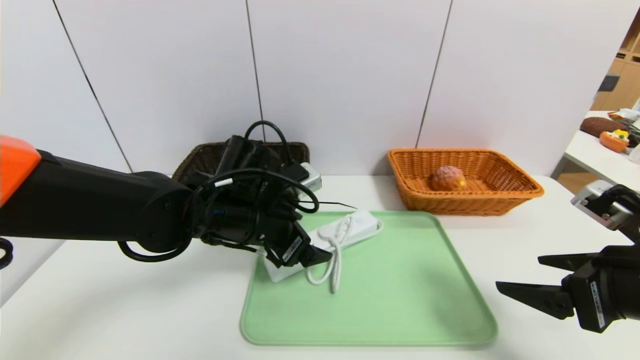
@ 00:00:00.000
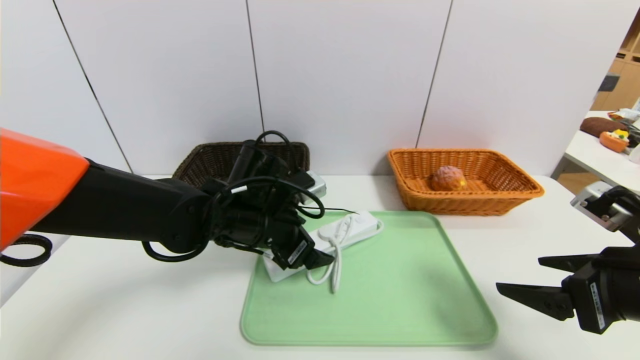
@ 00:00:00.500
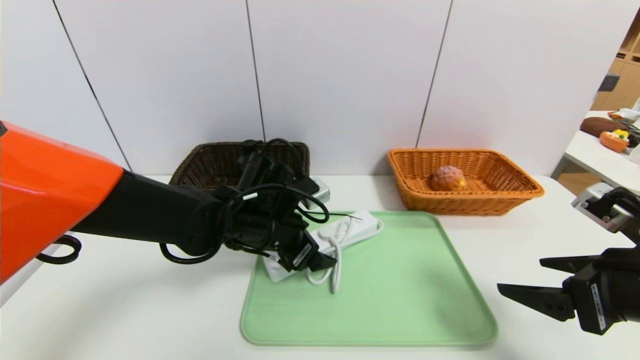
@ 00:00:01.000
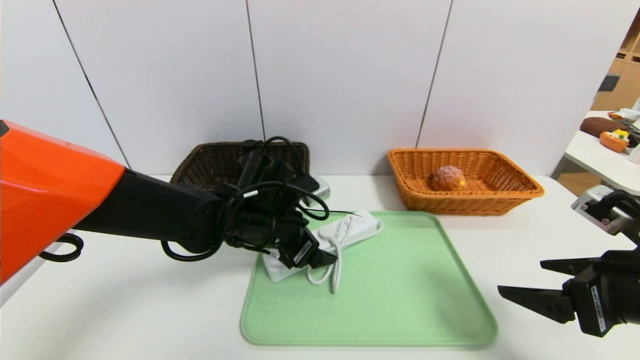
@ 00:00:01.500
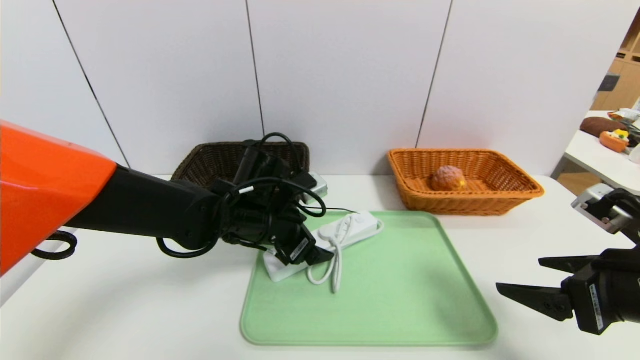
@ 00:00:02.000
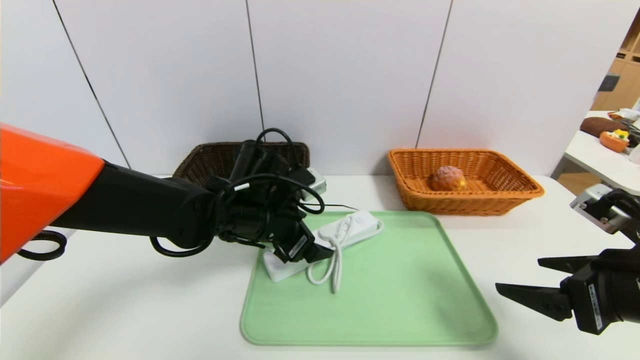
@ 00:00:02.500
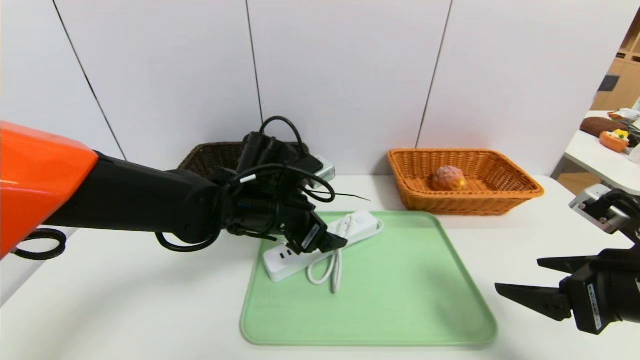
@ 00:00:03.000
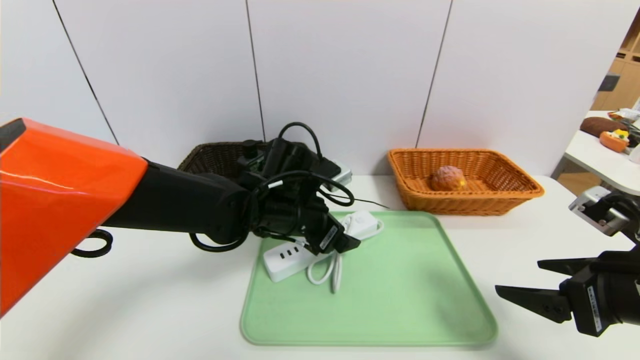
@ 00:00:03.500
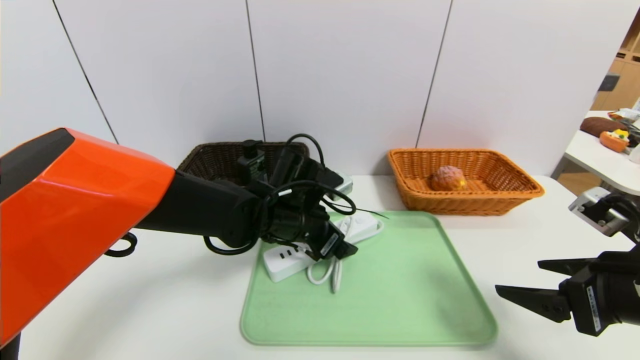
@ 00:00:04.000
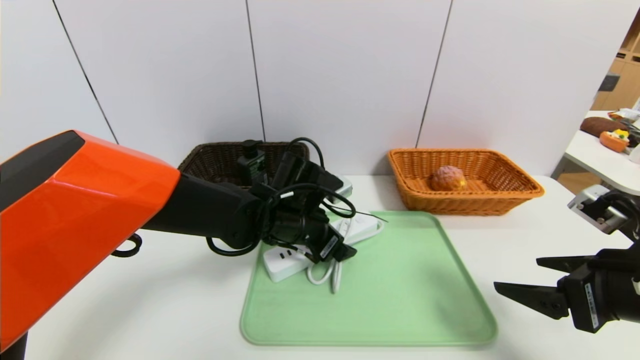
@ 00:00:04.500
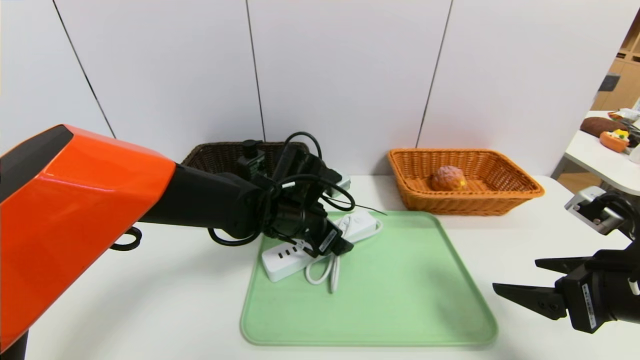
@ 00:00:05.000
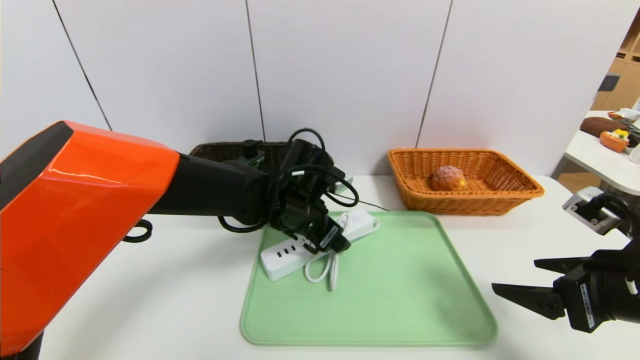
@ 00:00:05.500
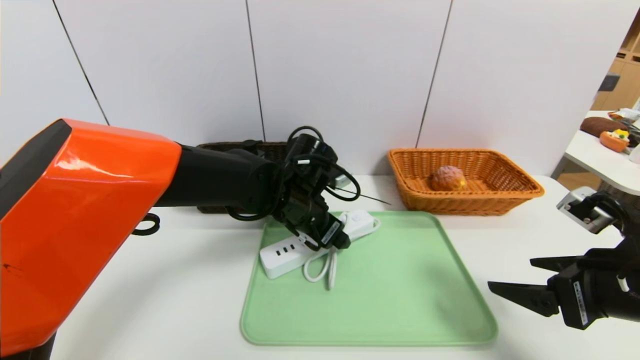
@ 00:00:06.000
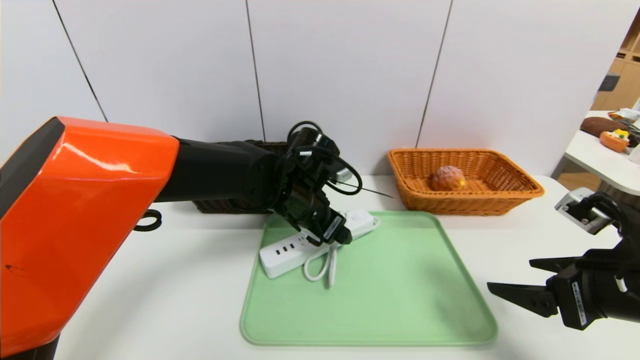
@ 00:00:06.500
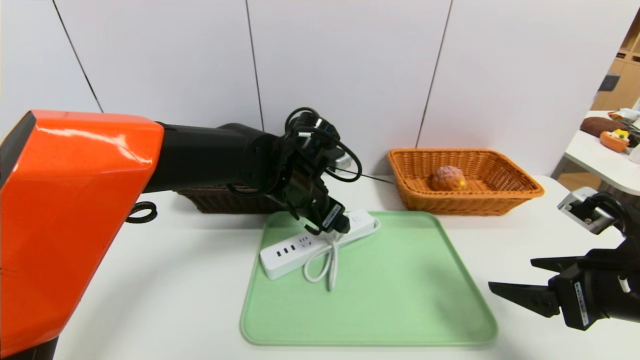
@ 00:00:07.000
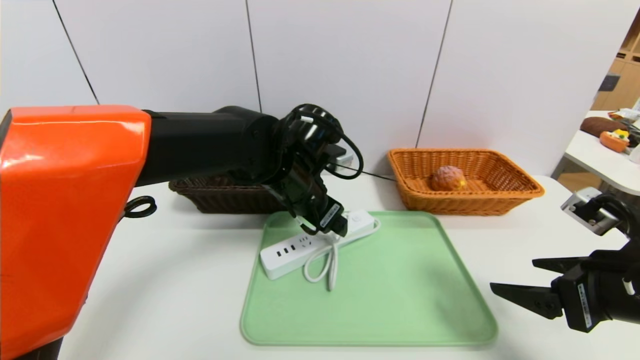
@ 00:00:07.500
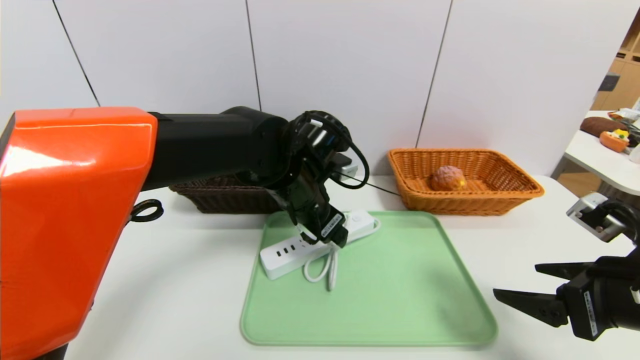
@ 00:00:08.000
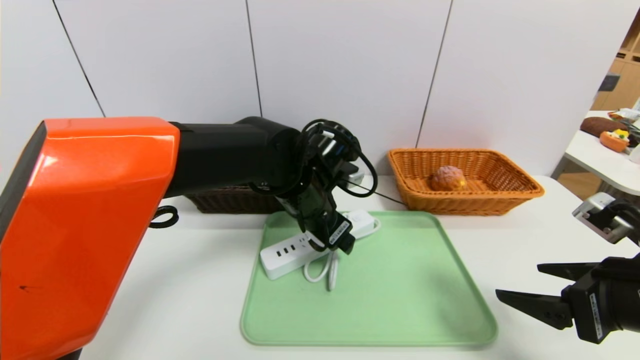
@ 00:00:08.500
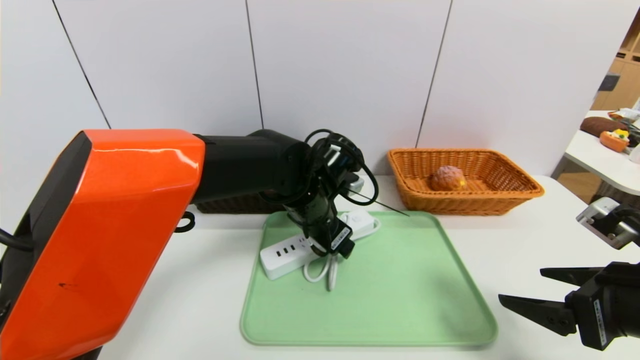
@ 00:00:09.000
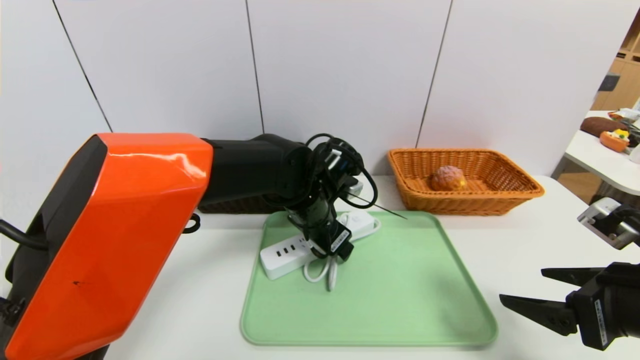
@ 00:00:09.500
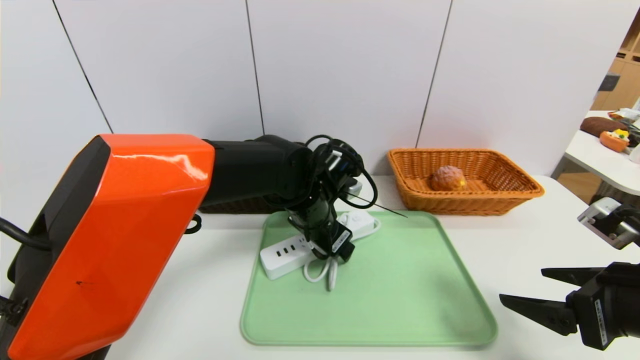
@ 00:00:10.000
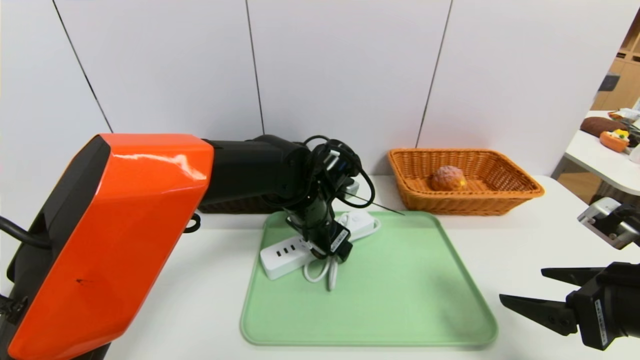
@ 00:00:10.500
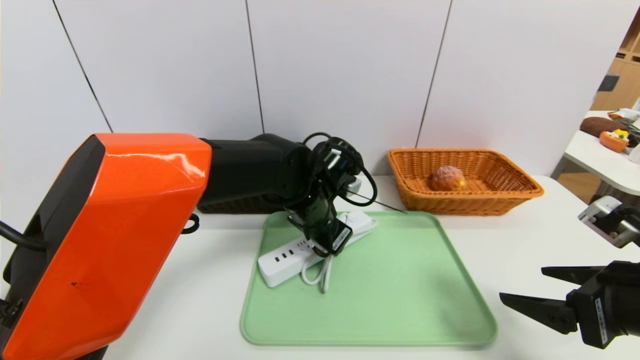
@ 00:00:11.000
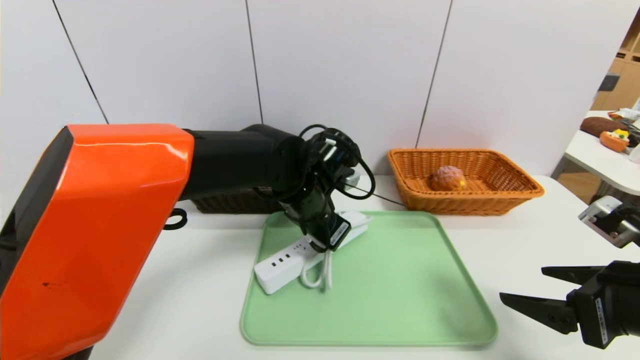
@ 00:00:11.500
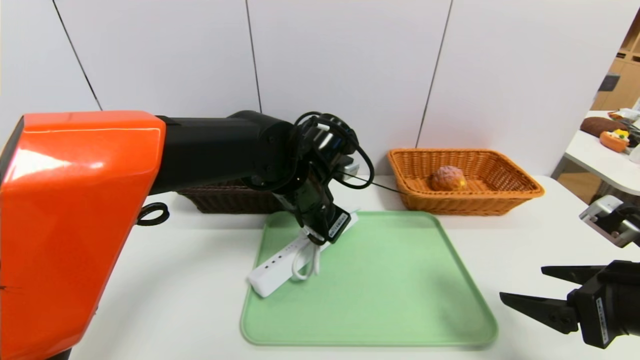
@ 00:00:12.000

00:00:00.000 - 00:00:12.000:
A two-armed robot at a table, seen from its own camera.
Task of the whole recording: place the food in the right basket with the right gripper, and place the non food items in the left basket with the left gripper.
00:00:00.000 - 00:00:02.000: The grippers stay close to where they were, moving slightly.
00:00:02.000 - 00:00:06.000: There are only small adjustments of the grippers.
00:00:06.000 - 00:00:08.000: There are only small adjustments of the grippers.
00:00:10.000 - 00:00:12.000: The left gripper closes up.

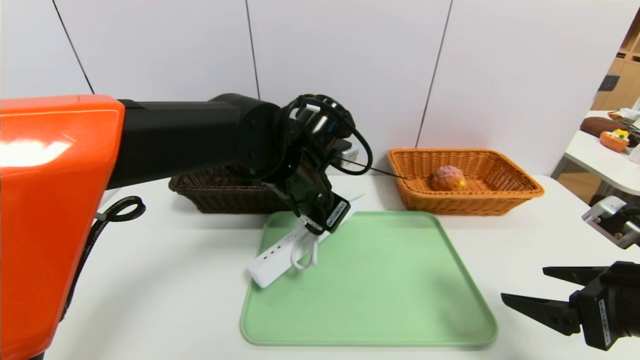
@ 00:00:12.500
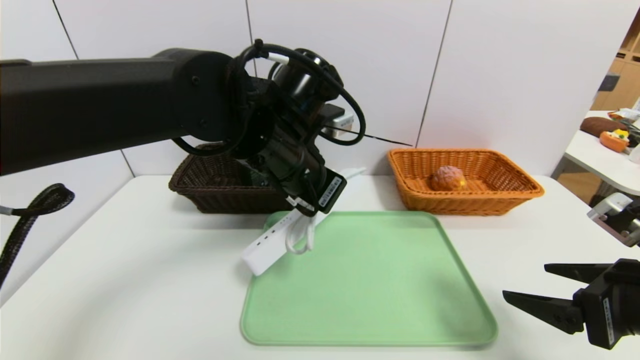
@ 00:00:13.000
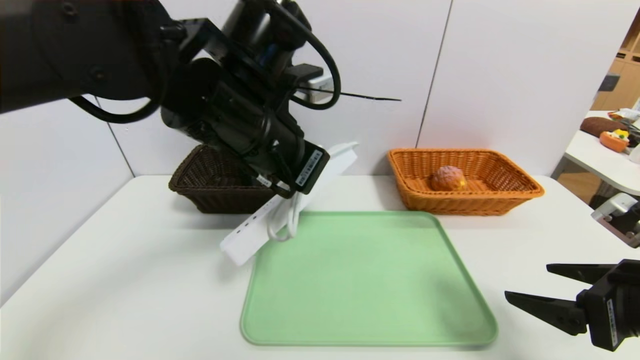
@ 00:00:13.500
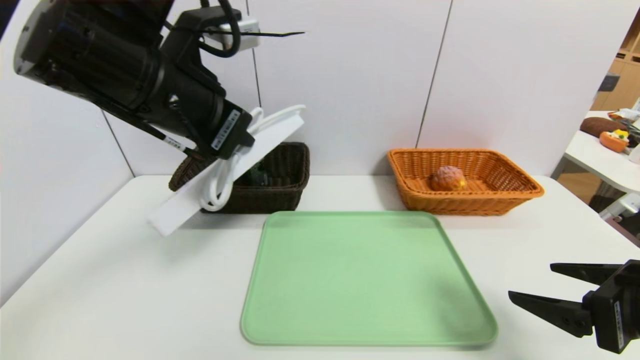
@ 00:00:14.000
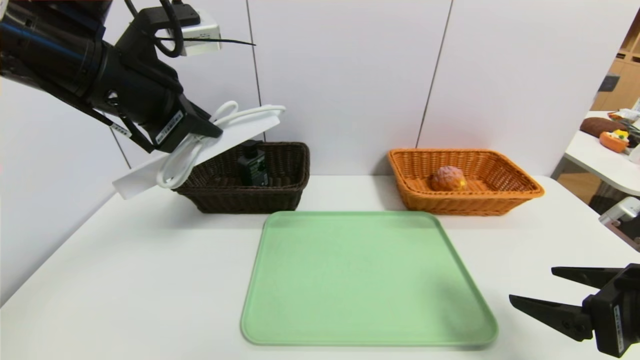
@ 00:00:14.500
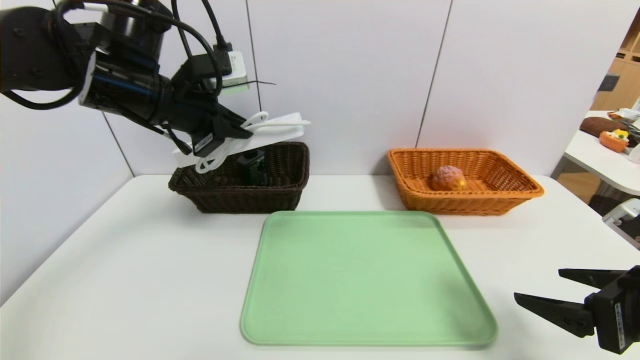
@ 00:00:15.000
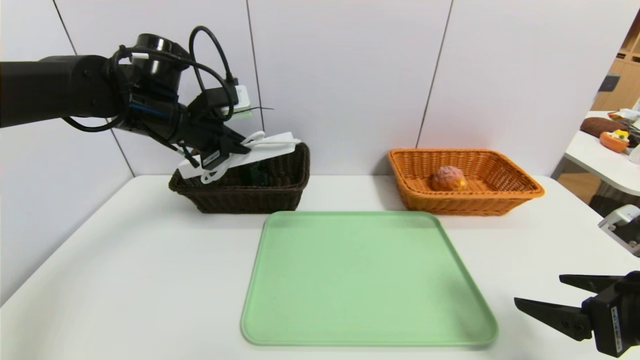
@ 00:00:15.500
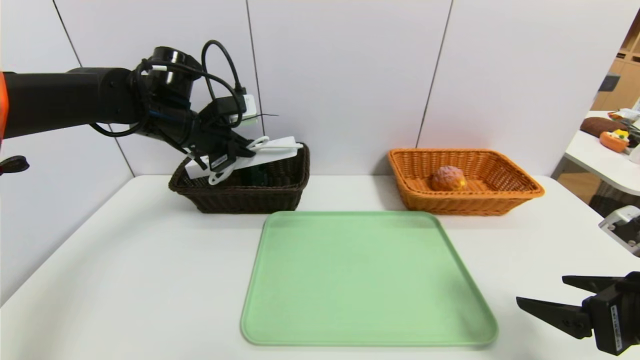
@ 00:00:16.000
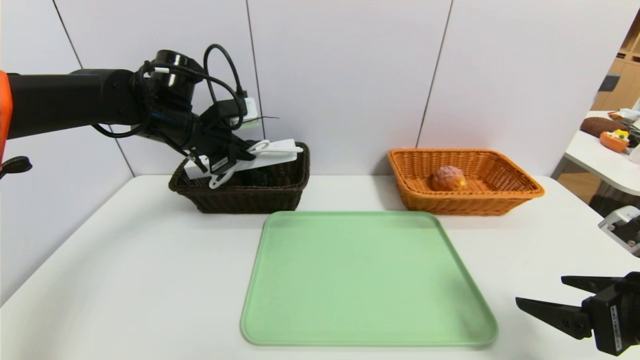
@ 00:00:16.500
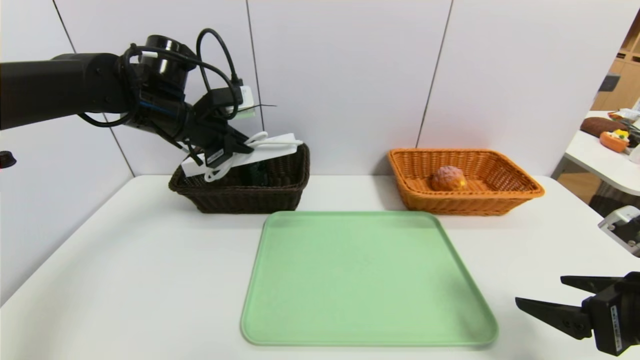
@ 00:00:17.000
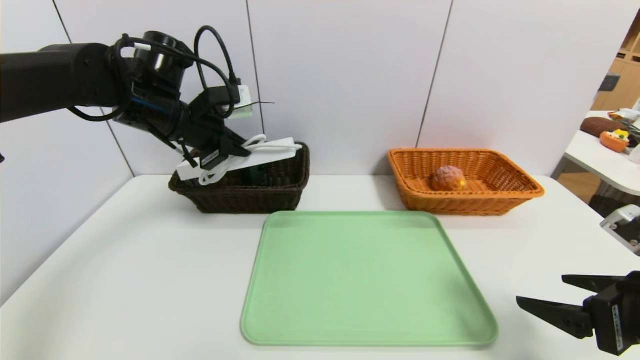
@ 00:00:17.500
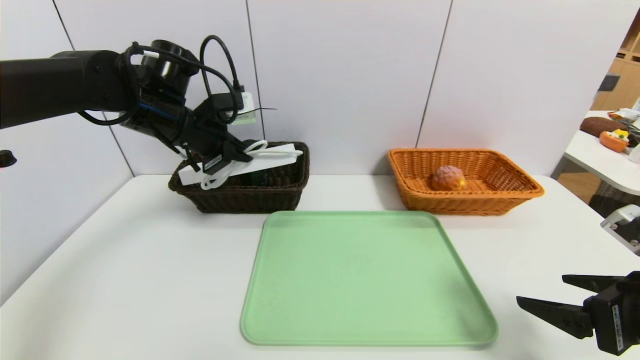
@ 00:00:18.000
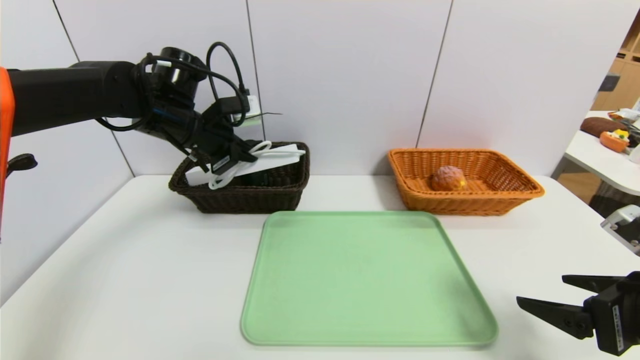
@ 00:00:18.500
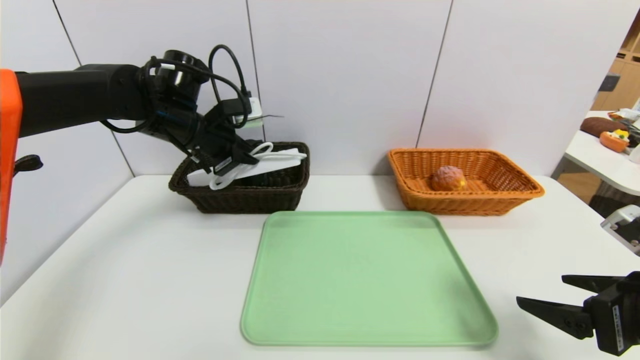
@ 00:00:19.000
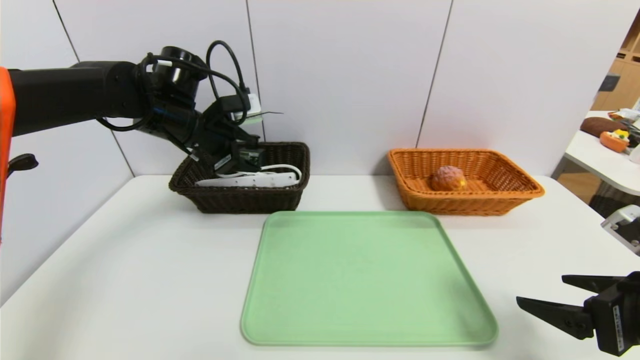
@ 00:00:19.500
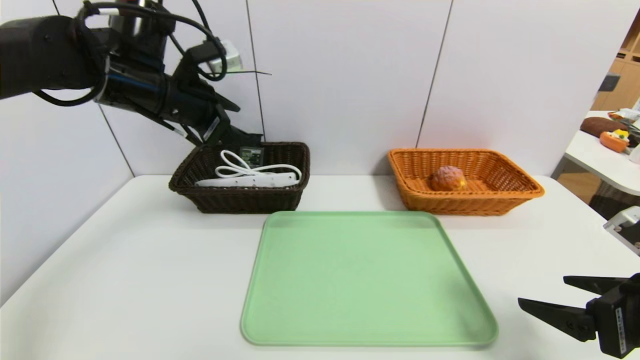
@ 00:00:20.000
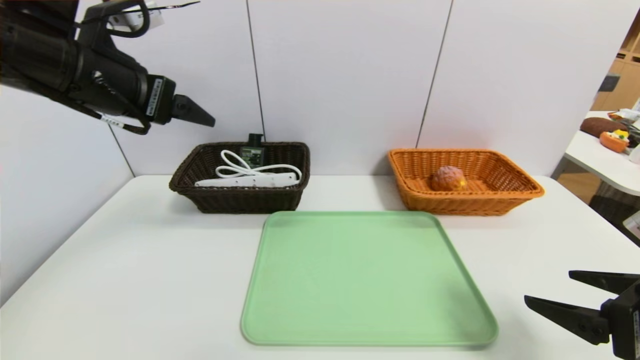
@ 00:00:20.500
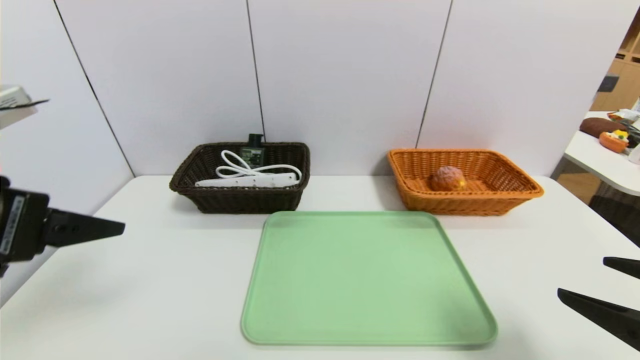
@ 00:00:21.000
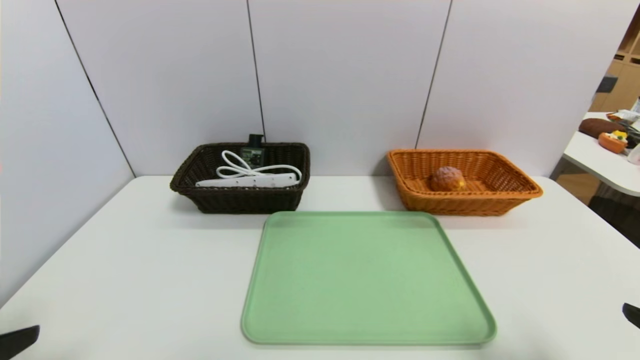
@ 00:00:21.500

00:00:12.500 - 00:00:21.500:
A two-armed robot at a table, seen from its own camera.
Task of the whole recording: place the food in the right basket with the right gripper, and place the non food items in the left basket with the left gripper.
Step, 00:00:12.500 - 00:00:19.500: Grasp the power strip and put it in the left basket.
00:00:12.500 - 00:00:14.500: The left gripper is displaced to the left and upward by roughly 20 cm.
00:00:14.500 - 00:00:17.000: The left gripper travels forward and downward by roughly 15 cm.
00:00:17.000 - 00:00:19.500: The left gripper opens its fingers.
00:00:19.500 - 00:00:21.500: The right gripper goes roughly 10 cm backward, while the left gripper travels backward by roughly 35 cm.
